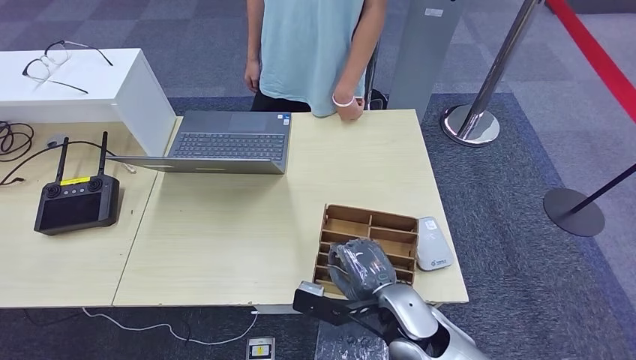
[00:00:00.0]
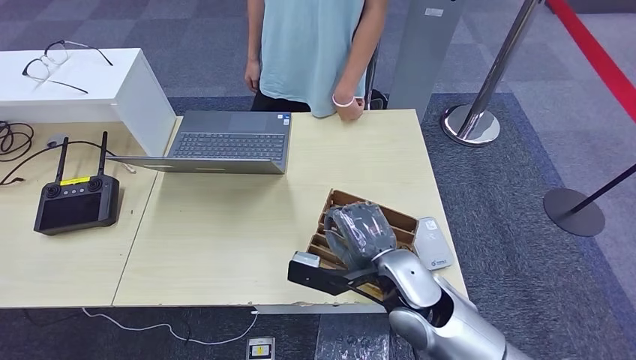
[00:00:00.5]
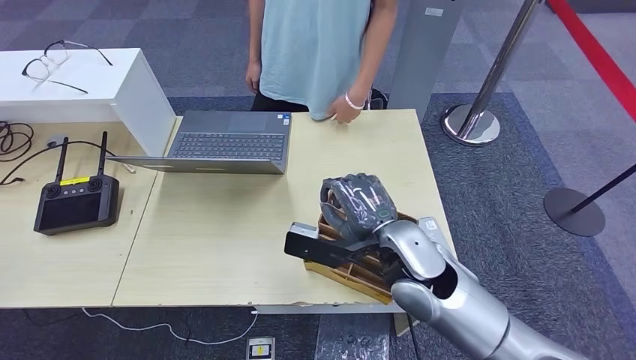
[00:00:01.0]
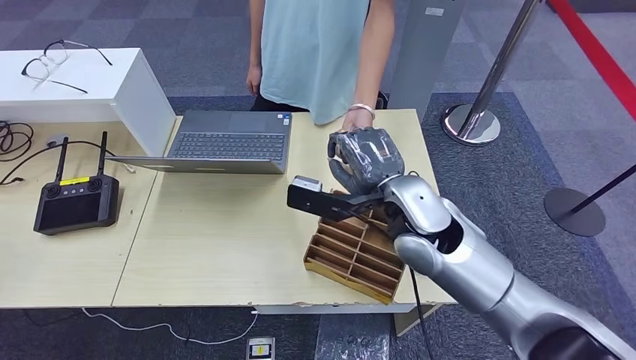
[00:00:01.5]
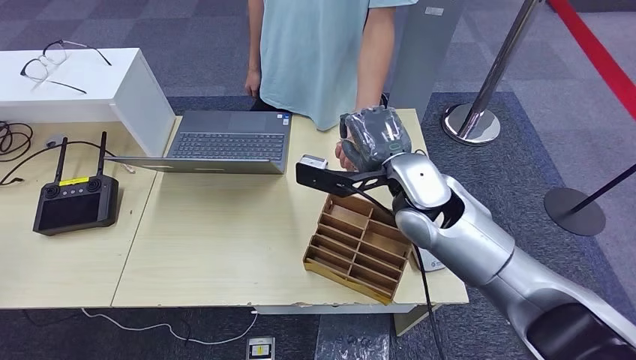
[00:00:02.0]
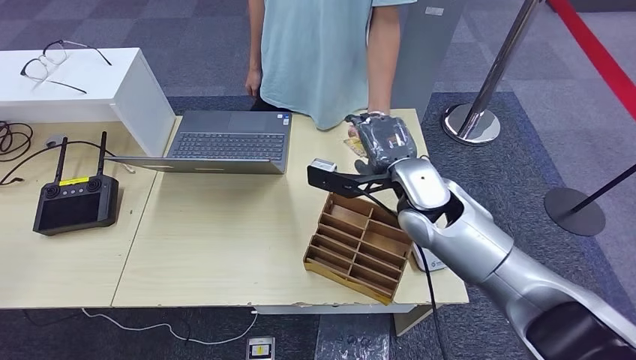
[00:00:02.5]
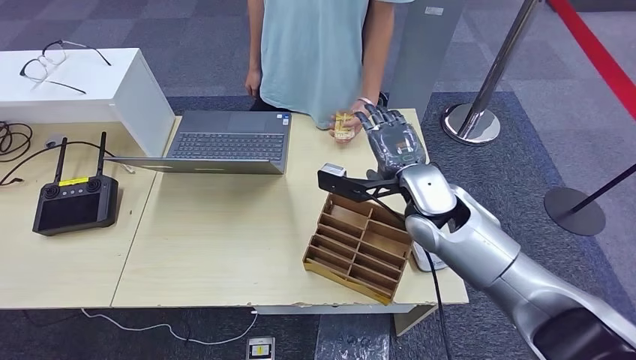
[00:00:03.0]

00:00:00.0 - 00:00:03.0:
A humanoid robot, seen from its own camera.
Step, 00:00:01.5 - 00:00:03.0: Hand the room key to the person.
00:00:00.0 - 00:00:01.5: The right hand travels upward and forward by approximately 20 cm.
00:00:01.5 - 00:00:03.0: The right hand changes place by approximately 5 cm.

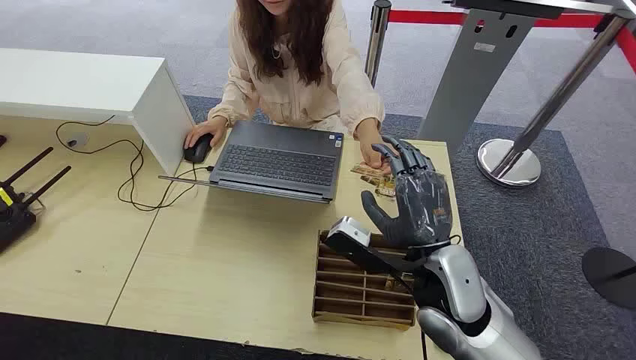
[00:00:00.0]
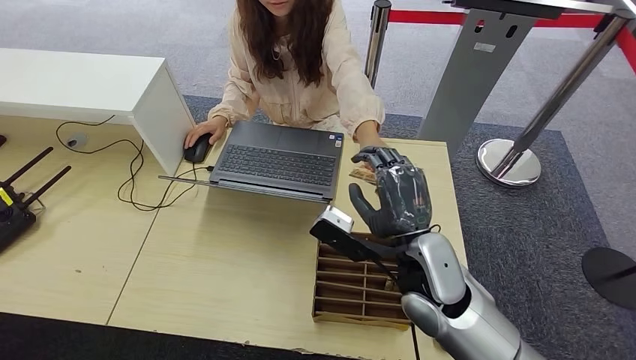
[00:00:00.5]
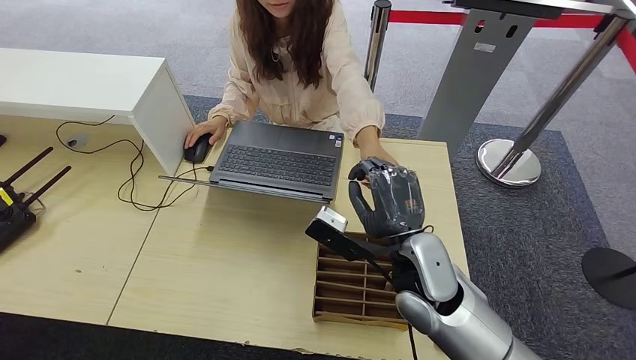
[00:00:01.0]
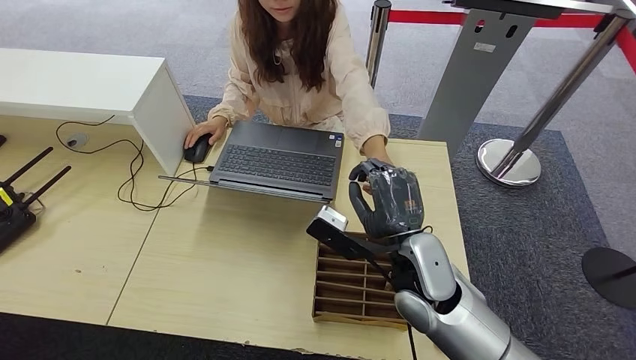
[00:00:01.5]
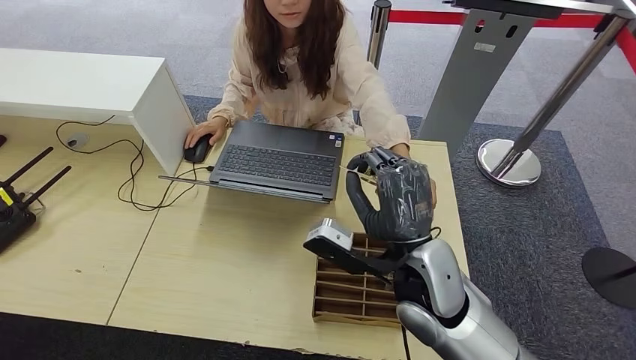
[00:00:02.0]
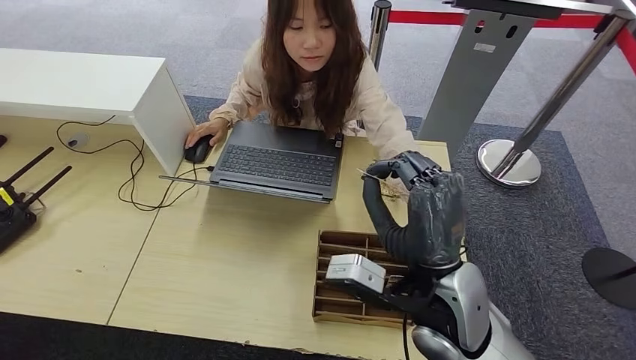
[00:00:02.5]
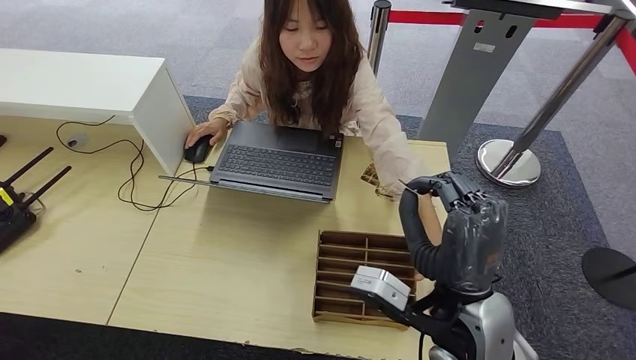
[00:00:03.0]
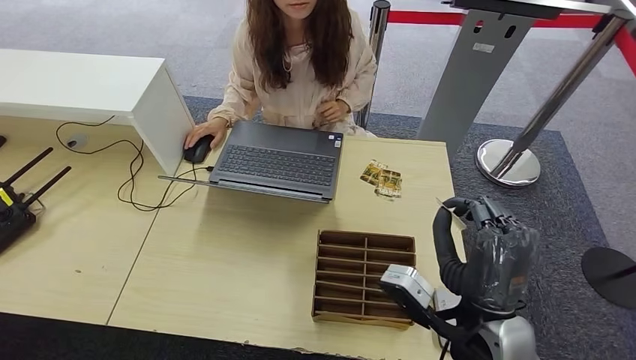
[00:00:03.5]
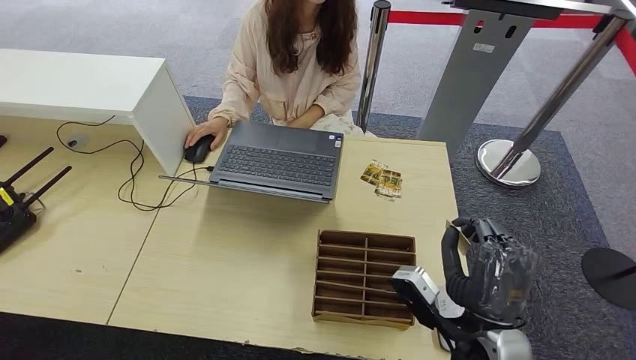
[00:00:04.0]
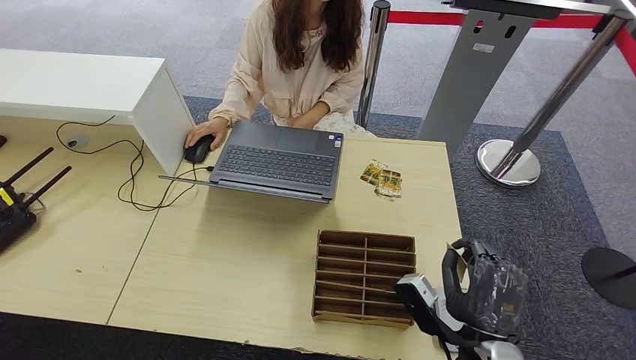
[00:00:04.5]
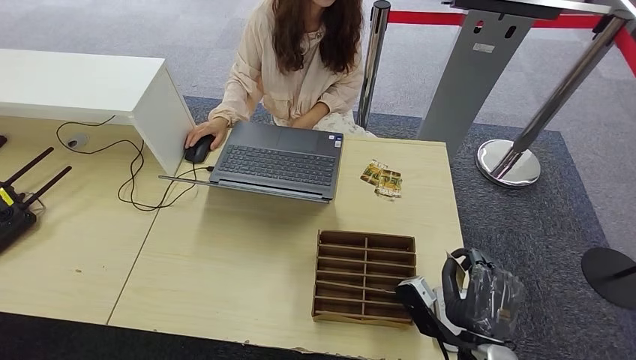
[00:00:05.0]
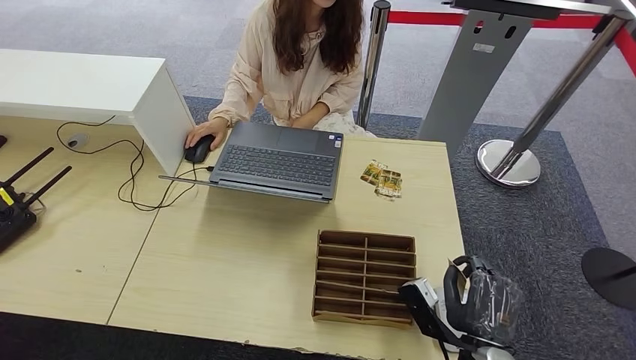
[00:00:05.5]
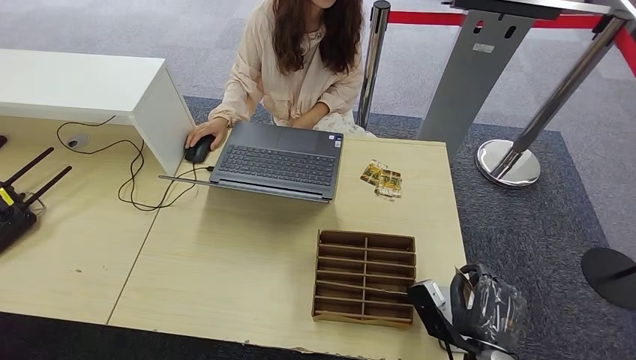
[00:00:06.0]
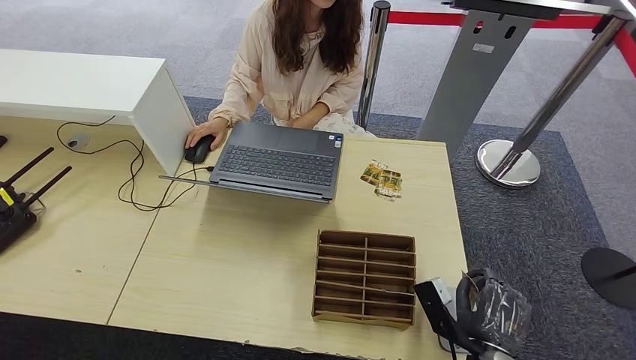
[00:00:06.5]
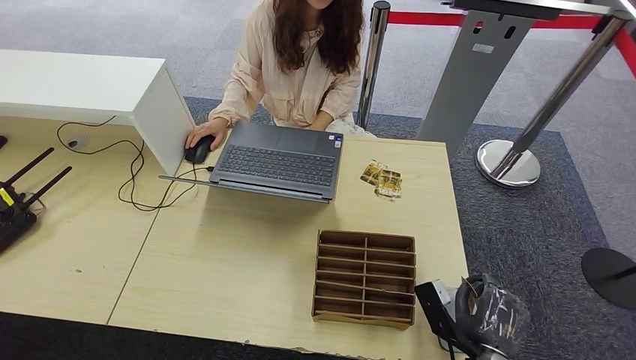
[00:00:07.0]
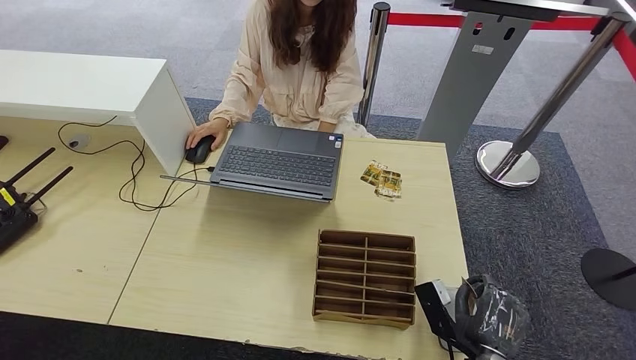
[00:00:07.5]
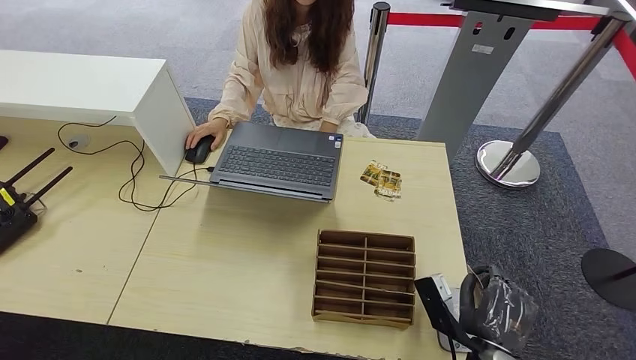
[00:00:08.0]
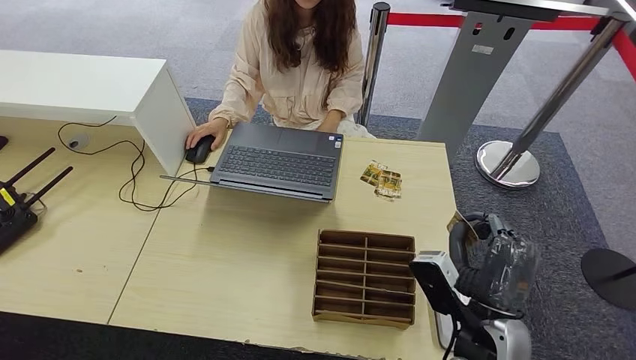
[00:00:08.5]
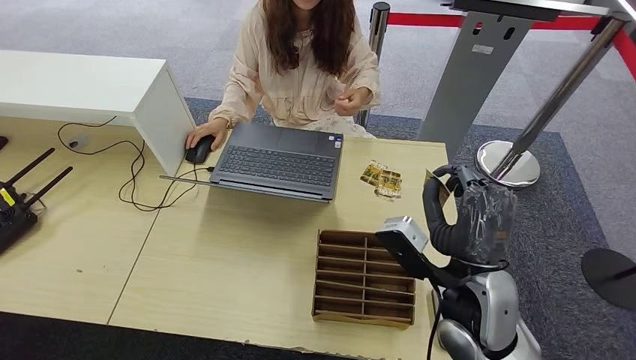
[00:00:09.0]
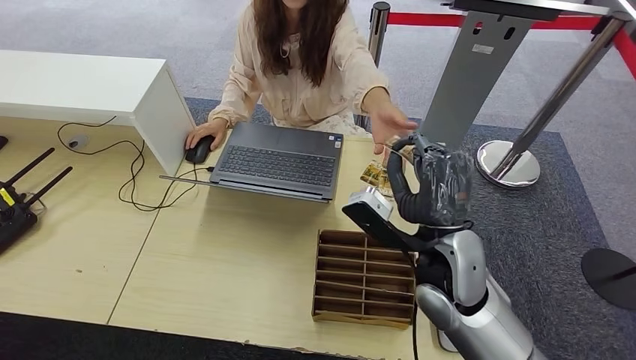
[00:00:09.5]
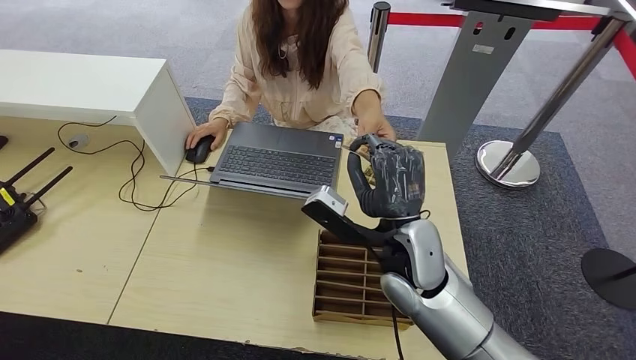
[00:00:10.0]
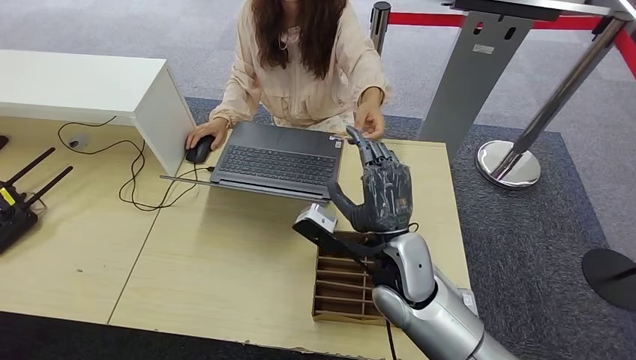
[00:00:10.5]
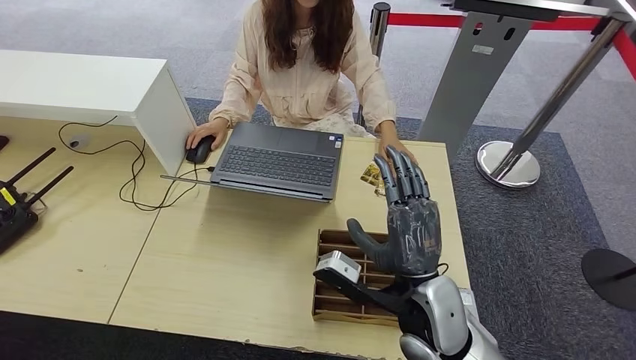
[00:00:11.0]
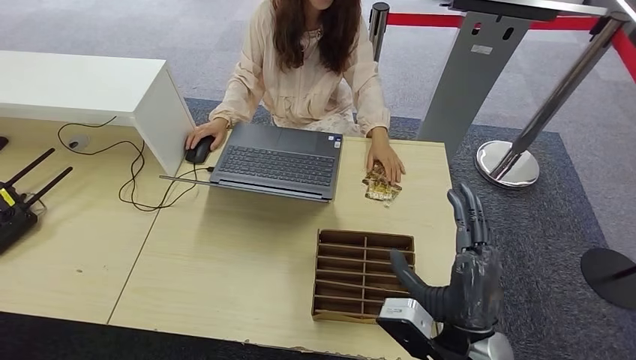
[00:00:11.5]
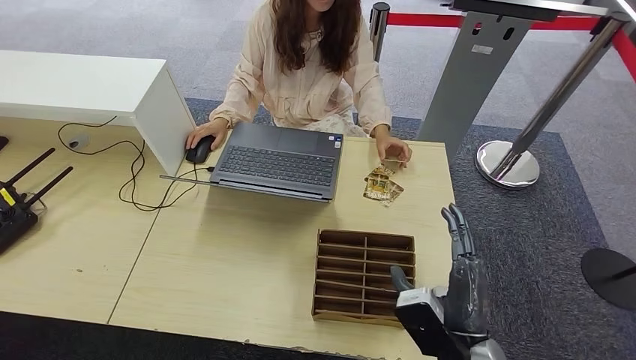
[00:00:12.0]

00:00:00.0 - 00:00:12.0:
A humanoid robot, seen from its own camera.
Step, 00:00:00.0 - 00:00:02.0: Take the ID card from the person's hand.
Step, 00:00:02.5 - 00:00:07.5: Place the ID card on the card reader.
Step, 00:00:08.0 - 00:00:11.0: Hand the ID card to the person.
00:00:02.0 - 00:00:04.0: The right hand shifts roughly 15 cm backward, to the right and downward.
00:00:04.0 - 00:00:06.0: The right hand travels downward by about 10 cm.
00:00:06.0 - 00:00:08.0: The hands move only a little.
00:00:08.0 - 00:00:10.0: The right hand is displaced upward, forward and to the left by approximately 25 cm.
00:00:10.0 - 00:00:12.0: The right hand heads backward, to the right and downward, covering about 20 cm.

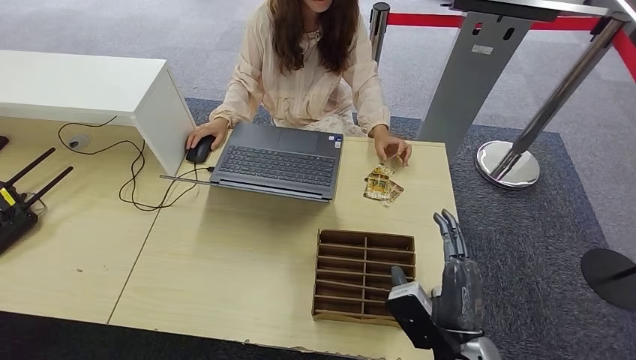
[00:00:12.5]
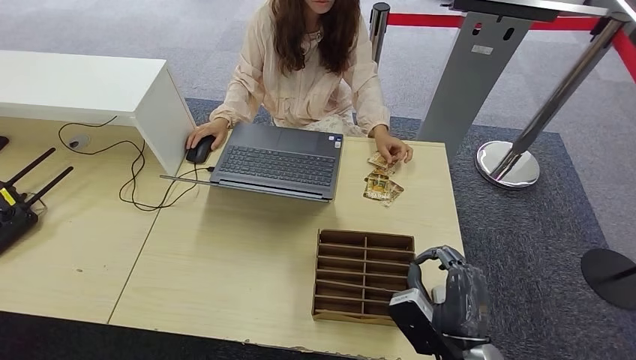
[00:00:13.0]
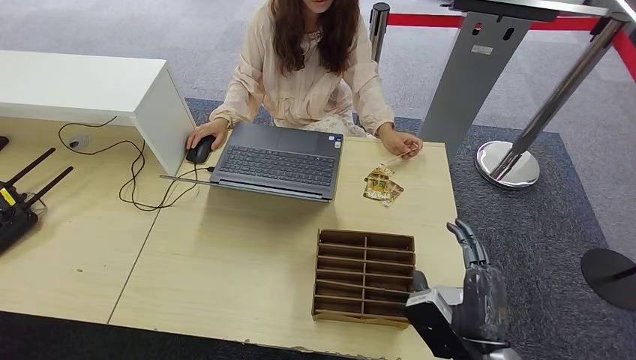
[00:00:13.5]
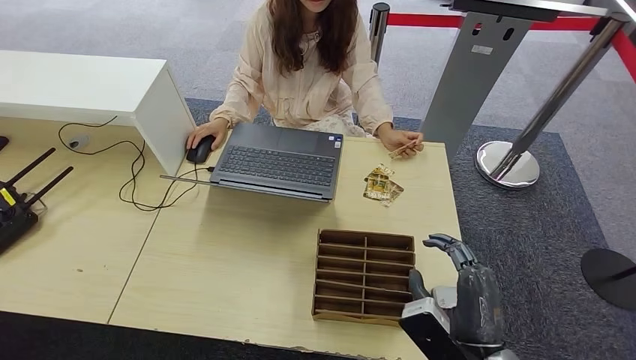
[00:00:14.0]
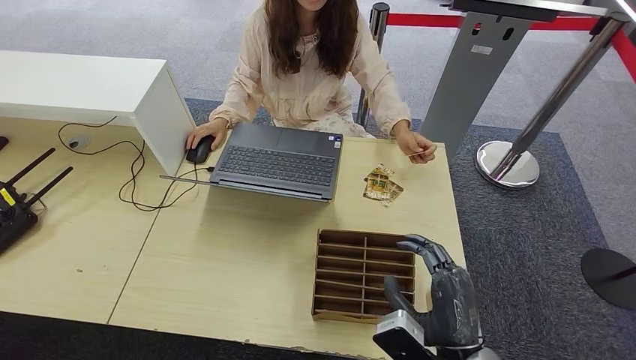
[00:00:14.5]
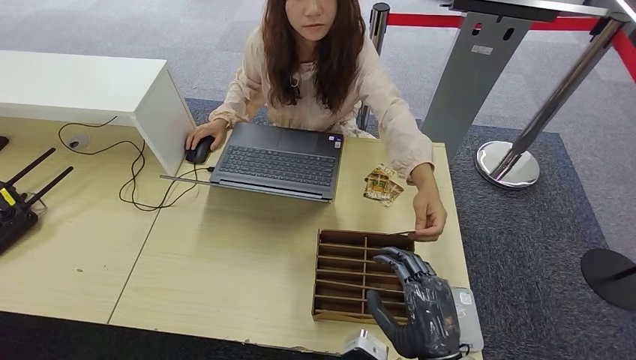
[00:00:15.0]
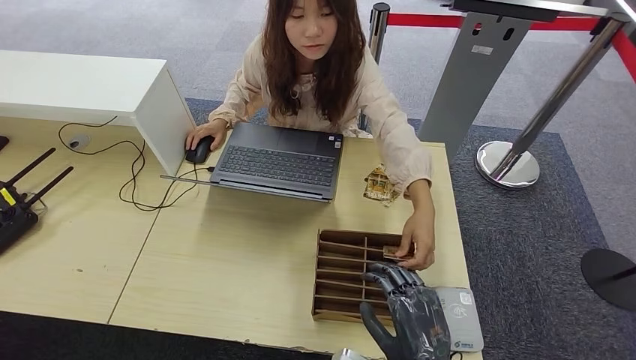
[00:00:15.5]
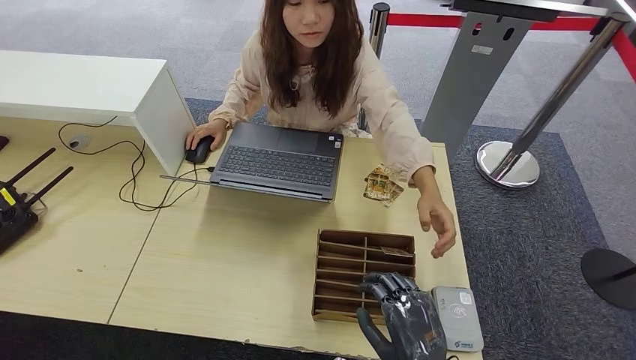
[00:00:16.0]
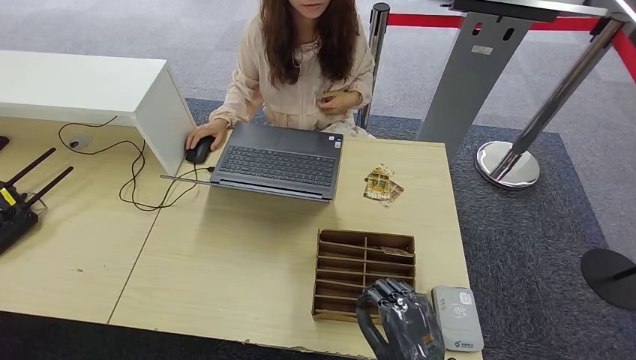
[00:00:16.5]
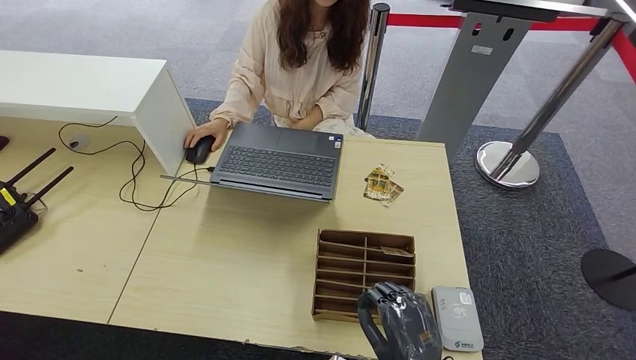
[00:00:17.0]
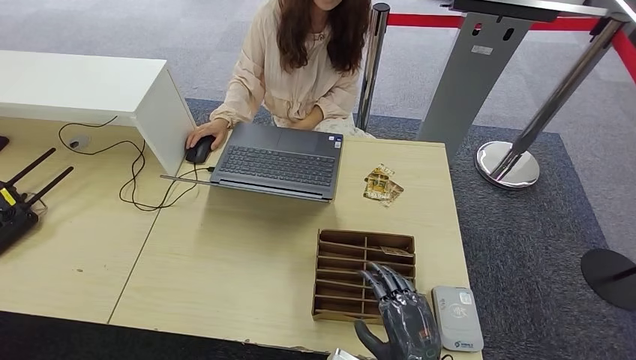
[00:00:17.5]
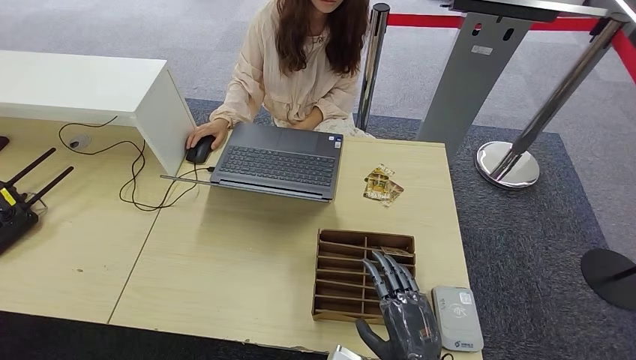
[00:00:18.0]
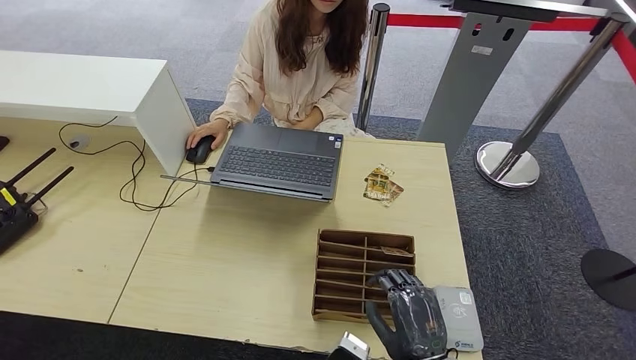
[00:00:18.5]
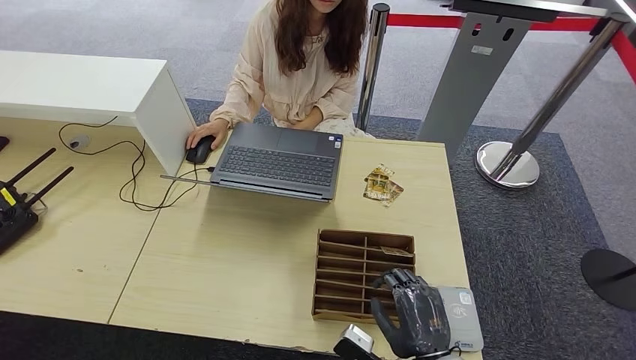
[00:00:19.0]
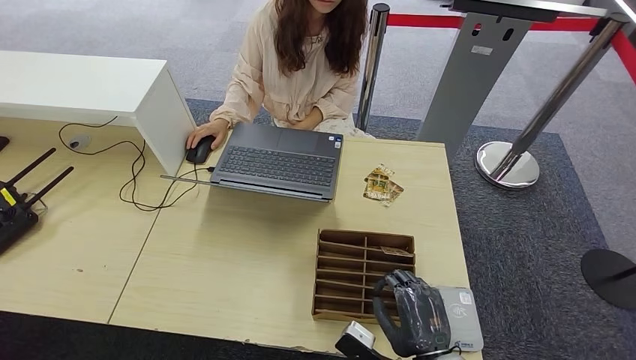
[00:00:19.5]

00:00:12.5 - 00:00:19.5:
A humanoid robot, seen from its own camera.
00:00:12.5 - 00:00:14.5: There are only small adjustments of the hands.
00:00:16.0 - 00:00:19.5: The hands move only a little.
